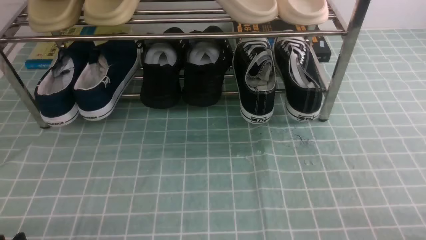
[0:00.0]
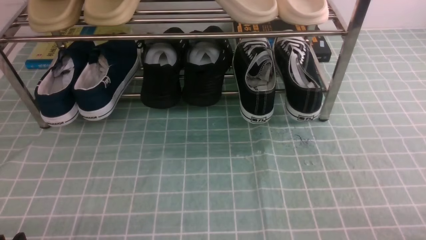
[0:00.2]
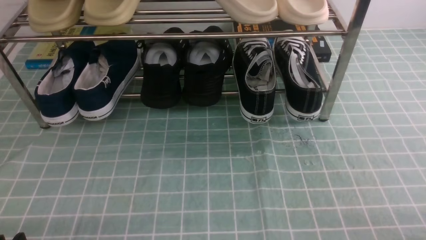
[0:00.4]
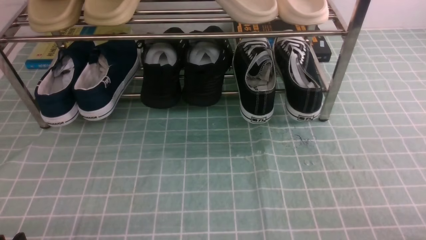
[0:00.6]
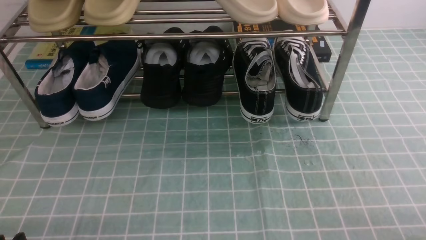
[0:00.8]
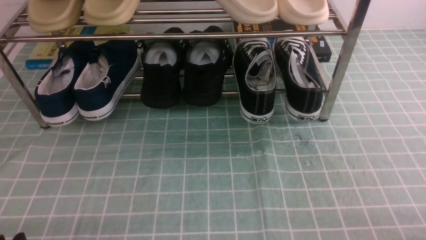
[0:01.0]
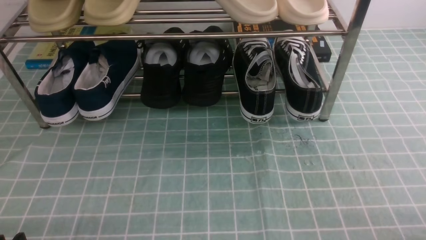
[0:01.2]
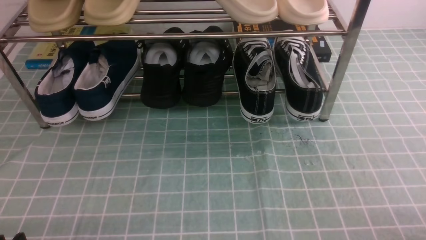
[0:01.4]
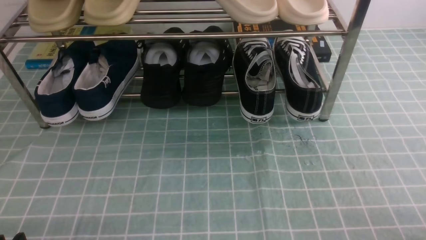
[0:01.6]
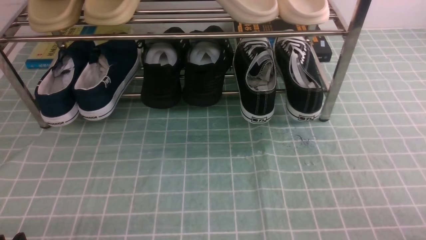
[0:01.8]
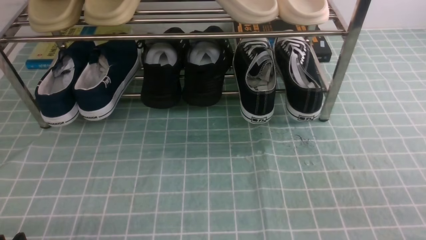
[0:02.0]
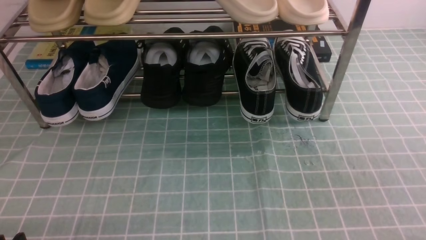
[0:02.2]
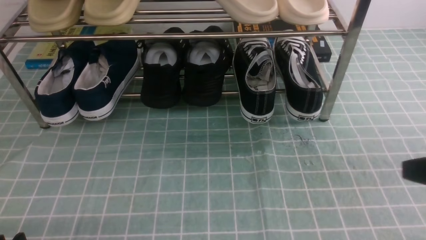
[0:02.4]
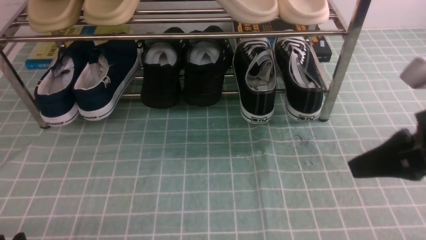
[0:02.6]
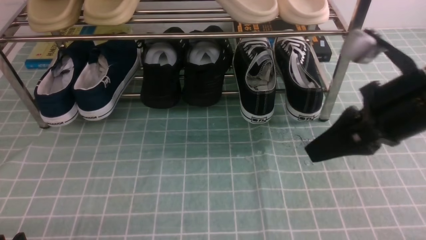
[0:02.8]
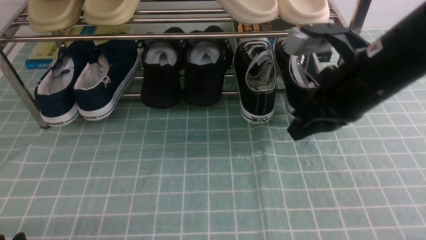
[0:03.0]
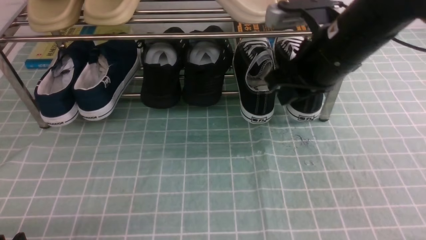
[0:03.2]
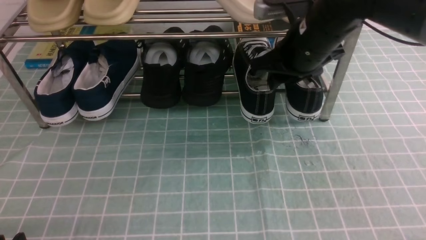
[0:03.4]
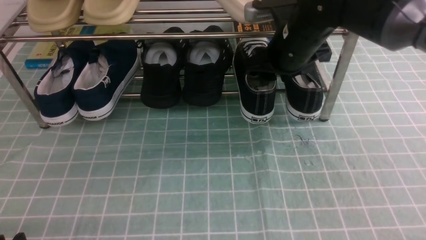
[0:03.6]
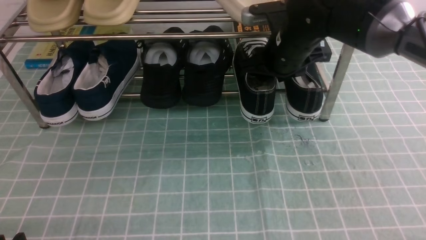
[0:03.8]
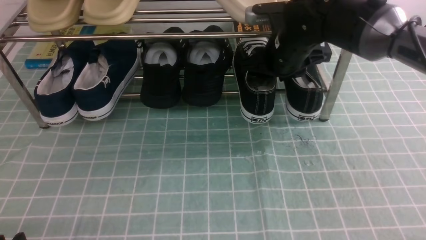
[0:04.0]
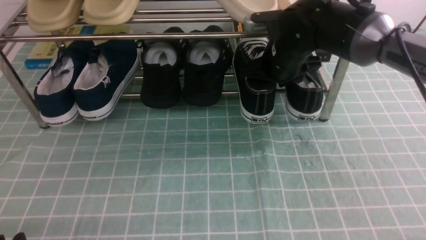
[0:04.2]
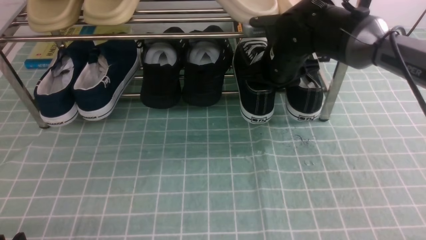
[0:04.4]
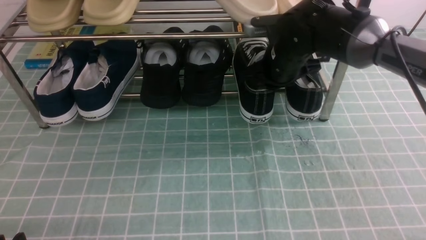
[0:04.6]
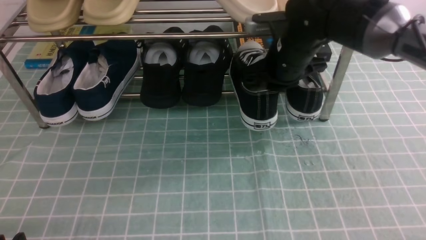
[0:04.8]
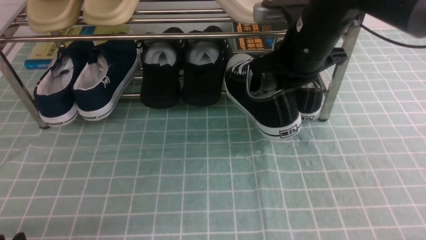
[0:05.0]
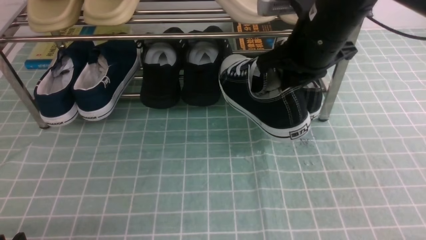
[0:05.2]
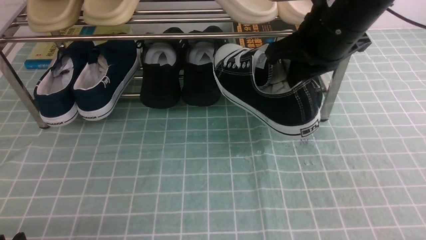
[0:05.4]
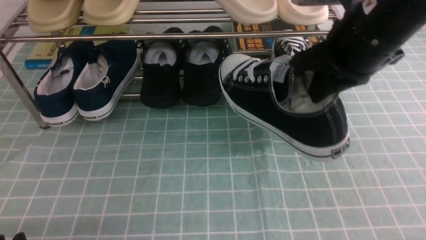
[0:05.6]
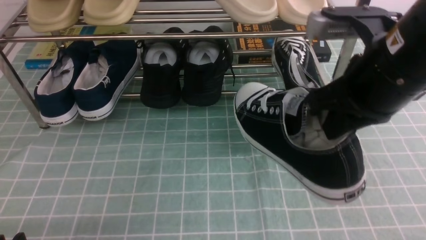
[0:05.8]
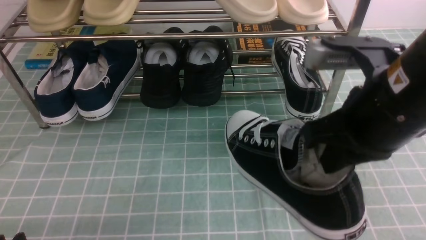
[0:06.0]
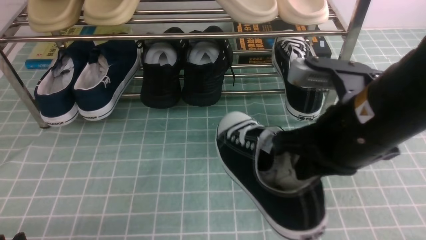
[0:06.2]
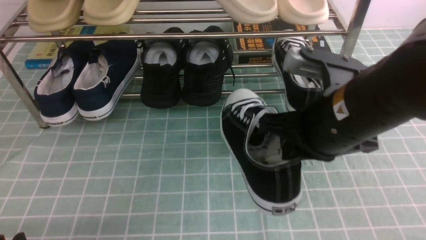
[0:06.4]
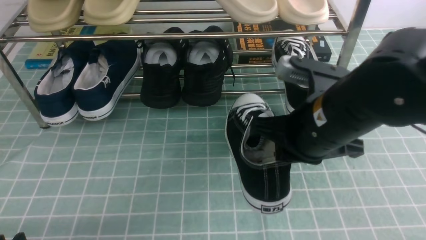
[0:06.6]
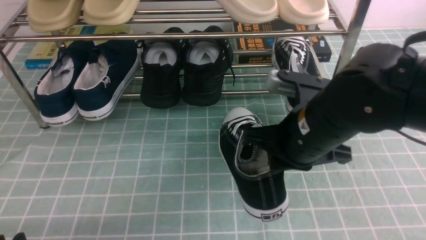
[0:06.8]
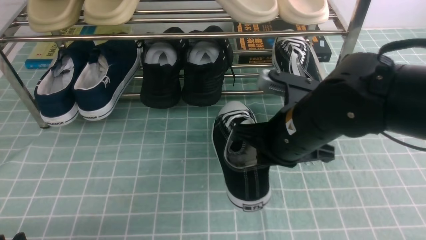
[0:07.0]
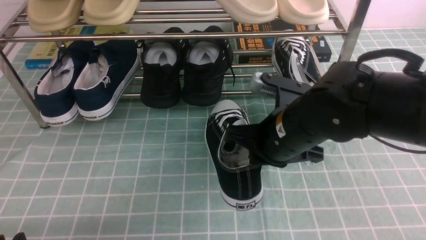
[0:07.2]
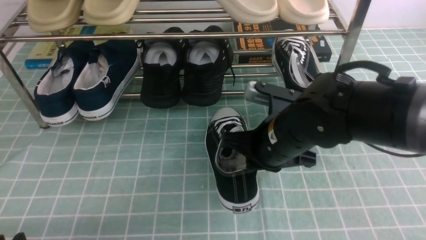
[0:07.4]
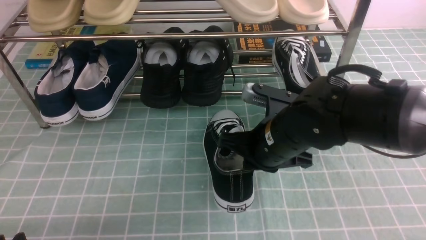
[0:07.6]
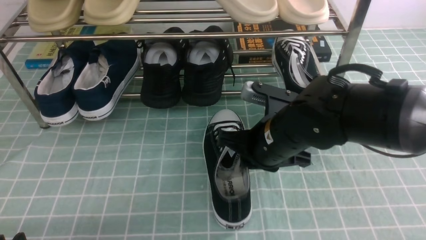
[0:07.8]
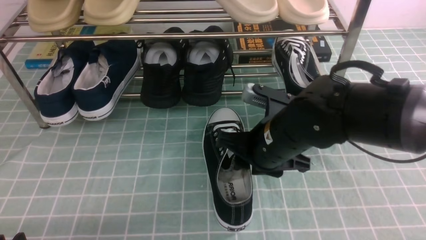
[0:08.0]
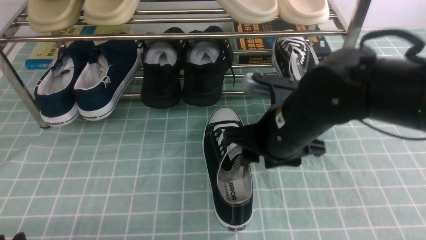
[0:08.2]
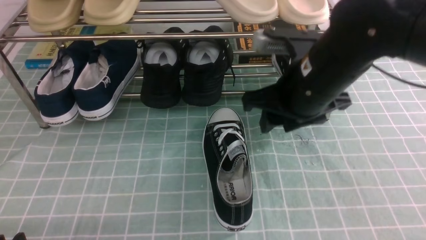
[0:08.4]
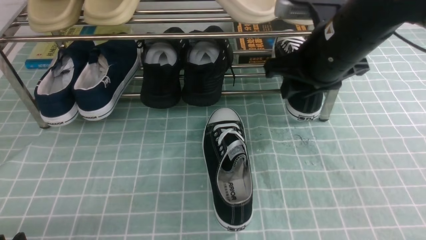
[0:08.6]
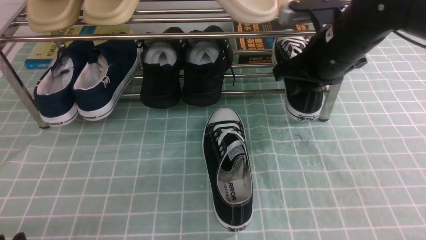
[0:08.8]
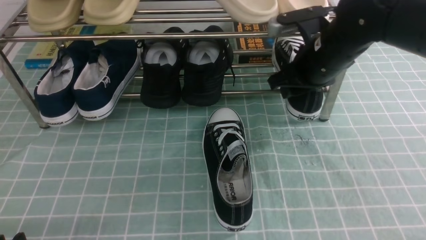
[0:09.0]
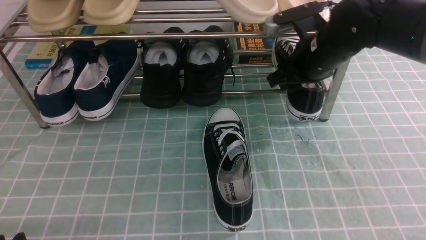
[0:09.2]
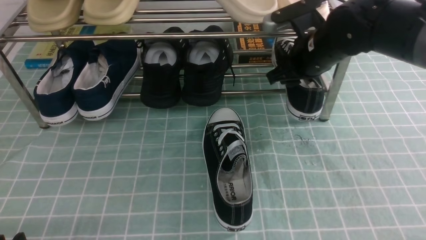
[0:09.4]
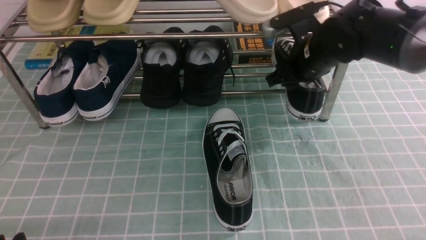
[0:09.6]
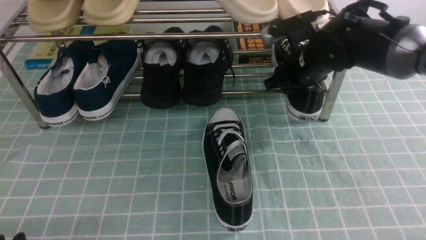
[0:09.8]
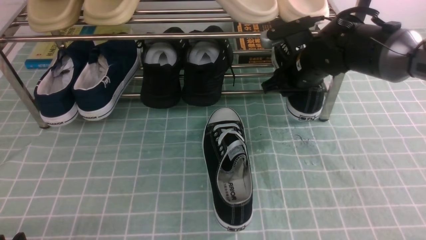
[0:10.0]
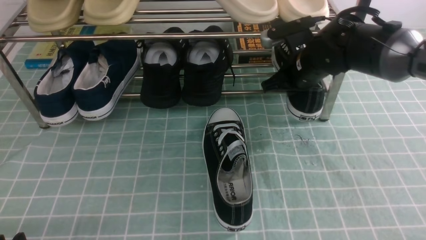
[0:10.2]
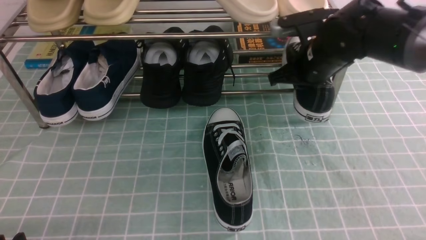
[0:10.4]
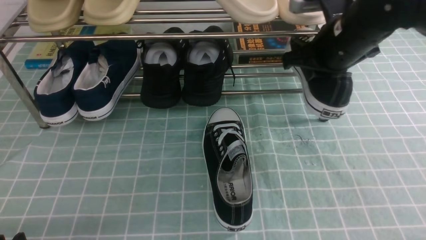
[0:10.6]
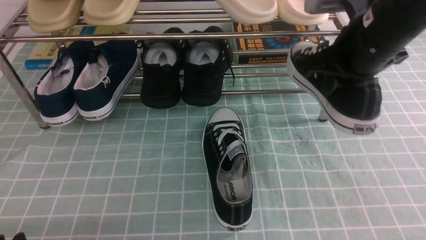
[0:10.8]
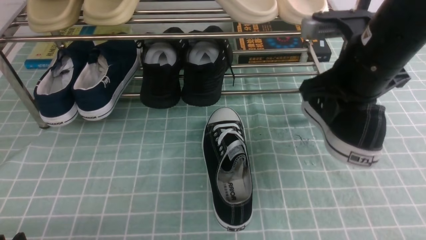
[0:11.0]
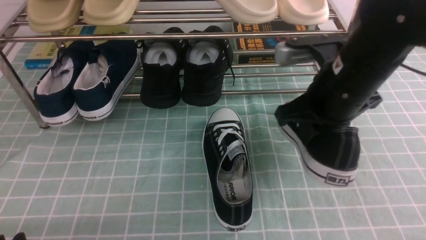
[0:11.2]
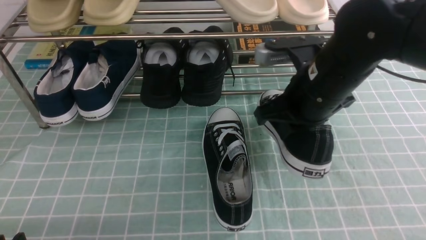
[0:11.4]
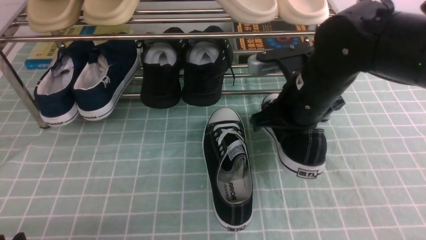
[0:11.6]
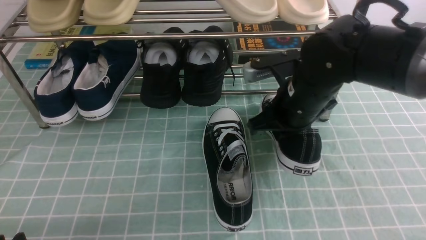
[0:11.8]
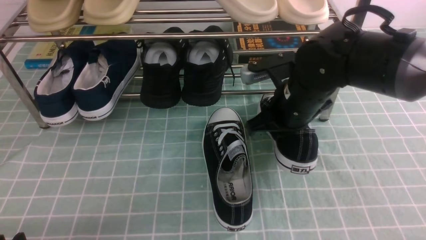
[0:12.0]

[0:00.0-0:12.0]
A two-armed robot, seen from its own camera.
Step, 0:00.0 to 0:04.6: use the right arm to clamp a shoe on the right side of the shoe rack.
Step, 0:04.8 to 0:08.4: use the right arm to take out the clamped shoe from the shoe rack and put it down.
Step, 0:08.6 to 0:10.2: use the right arm to clamp a shoe on the right side of the shoe rack.
0:01.6 to 0:03.0: The right gripper shifts approximately 30 cm forward, upward and to the left, and closes.
0:03.0 to 0:04.4: The right gripper is displaced forward and downward by some 15 cm, and opens its fingers.
0:04.4 to 0:06.0: The right gripper shifts approximately 25 cm backward and upward, and closes its fingers.
0:06.0 to 0:07.6: The right gripper travels downward, to the left and forward by approximately 15 cm.
0:07.6 to 0:09.0: The right gripper travels forward, to the right and upward by about 15 cm, and opens its fingers.
0:09.0 to 0:10.4: The right gripper closes up.
0:10.4 to 0:12.0: The right gripper goes approximately 10 cm backward and to the left.

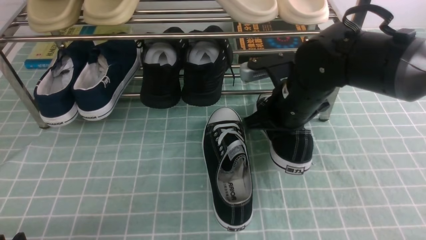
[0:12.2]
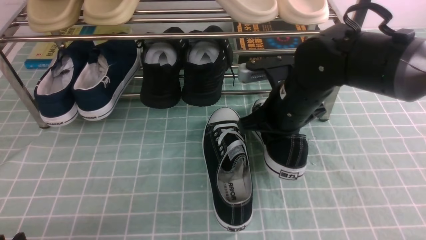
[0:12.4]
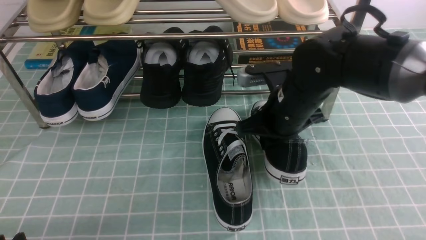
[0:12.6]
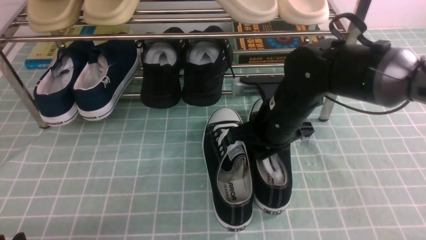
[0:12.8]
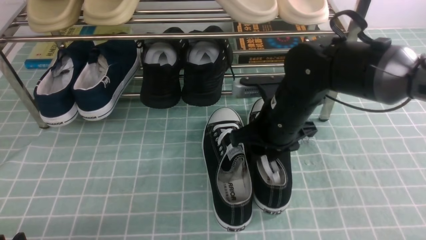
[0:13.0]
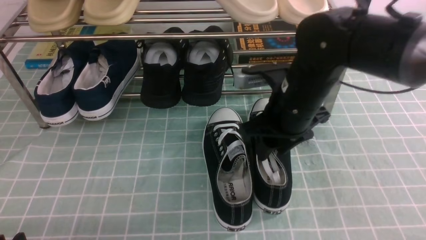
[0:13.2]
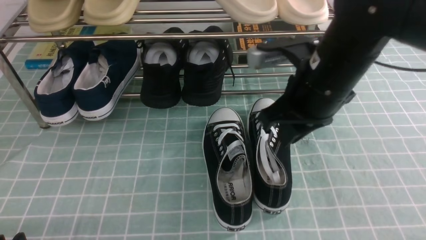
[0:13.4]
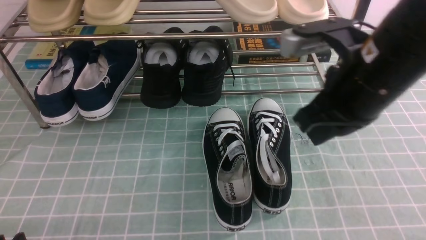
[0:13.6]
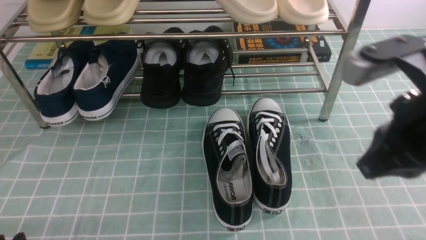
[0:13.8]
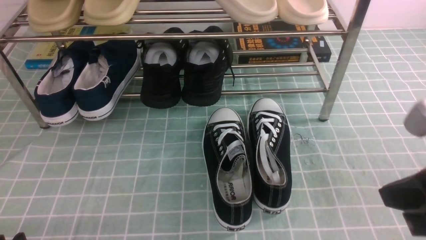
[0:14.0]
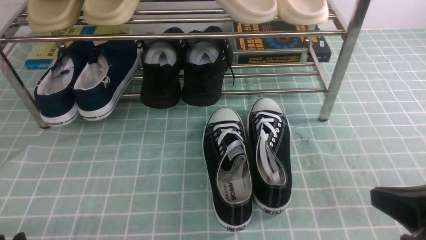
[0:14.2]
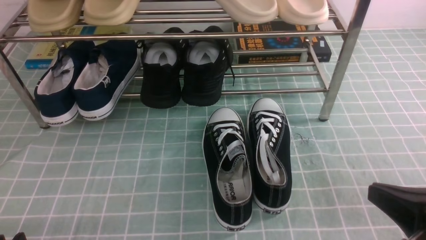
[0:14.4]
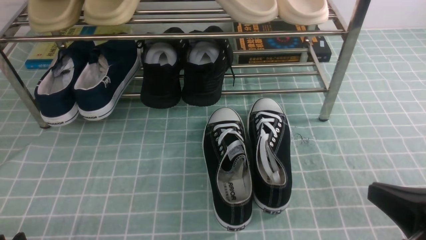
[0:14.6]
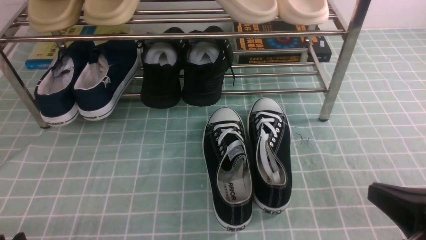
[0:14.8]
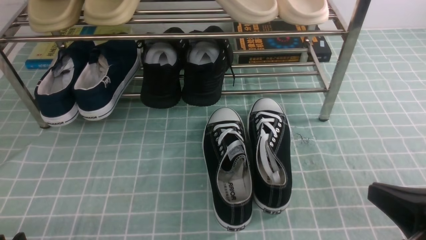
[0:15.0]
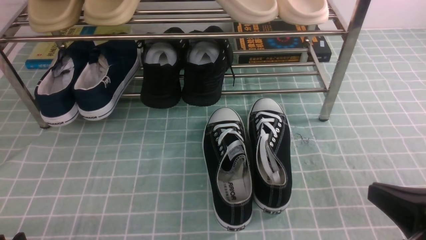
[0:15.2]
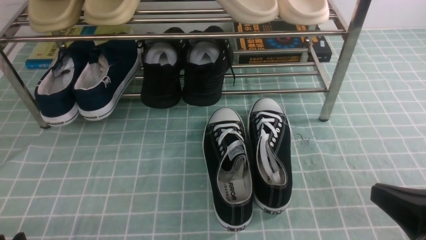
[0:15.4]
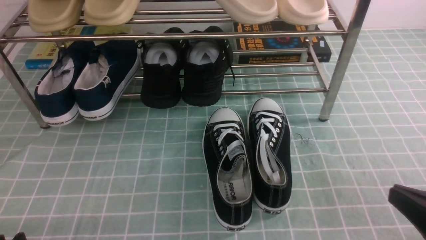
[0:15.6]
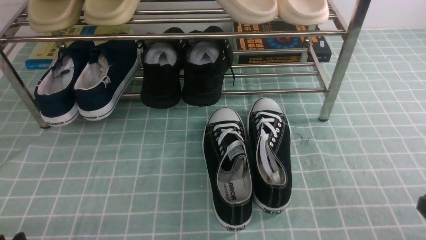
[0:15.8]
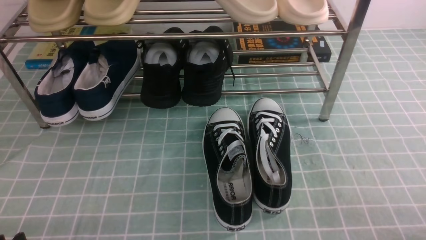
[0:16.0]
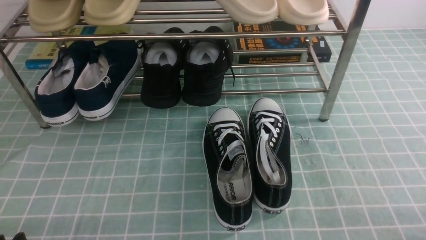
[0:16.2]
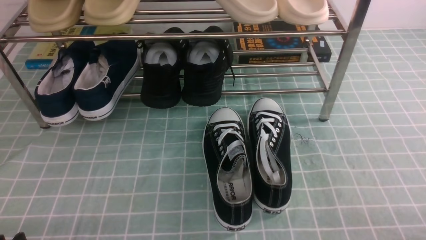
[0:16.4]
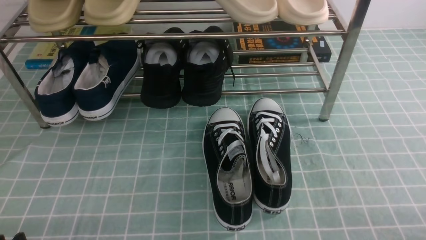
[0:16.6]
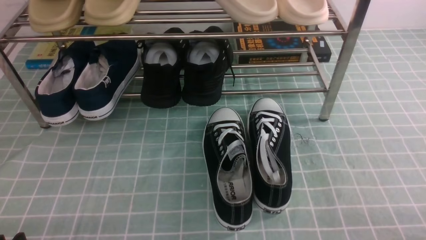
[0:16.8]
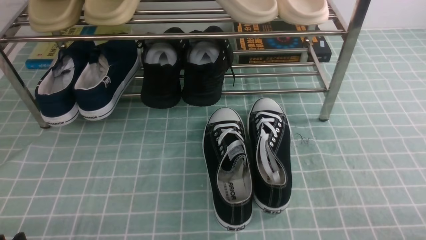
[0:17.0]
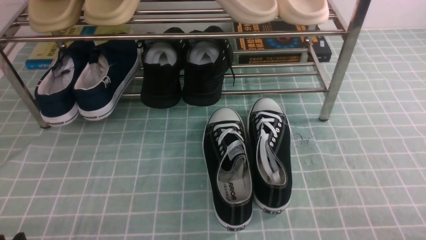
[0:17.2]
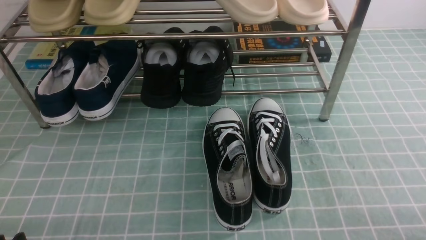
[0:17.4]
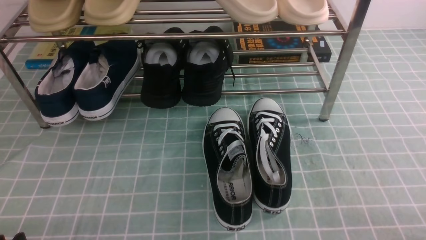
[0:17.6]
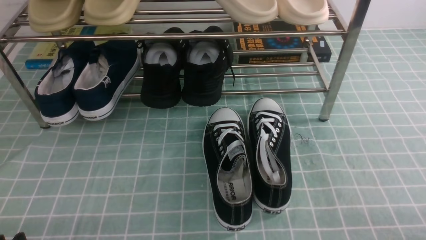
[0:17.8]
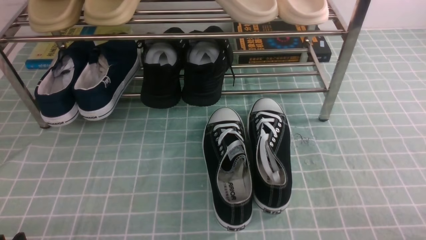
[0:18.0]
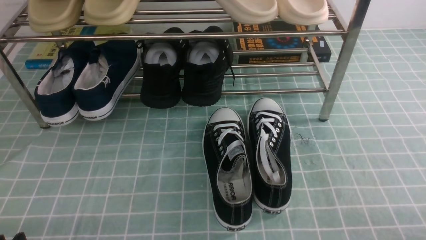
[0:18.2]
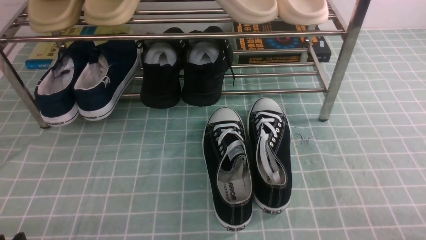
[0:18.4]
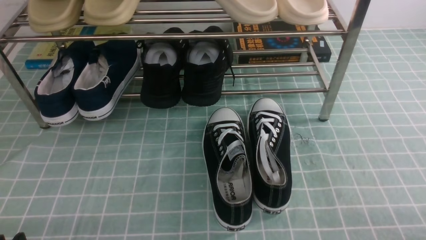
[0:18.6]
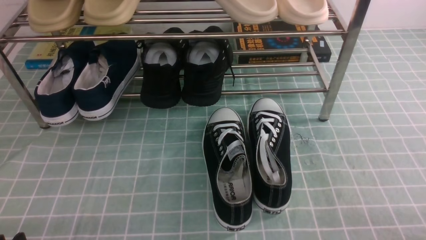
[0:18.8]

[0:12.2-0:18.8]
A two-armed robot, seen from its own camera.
0:12.2 to 0:13.8: The right gripper moves backward, upward and to the right, roughly 20 cm, and opens and closes again.
0:13.8 to 0:15.4: The right gripper shifts some 15 cm downward, backward and to the right.
0:15.4 to 0:17.2: The right gripper goes about 10 cm downward and to the right.
0:17.2 to 0:18.8: The two grippers keep their place.
